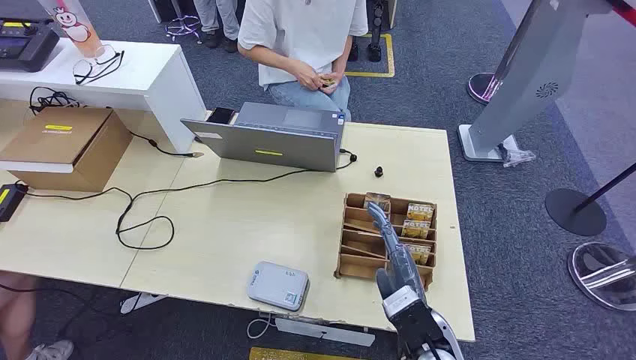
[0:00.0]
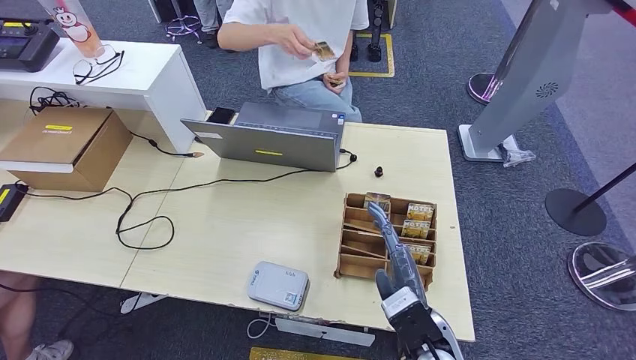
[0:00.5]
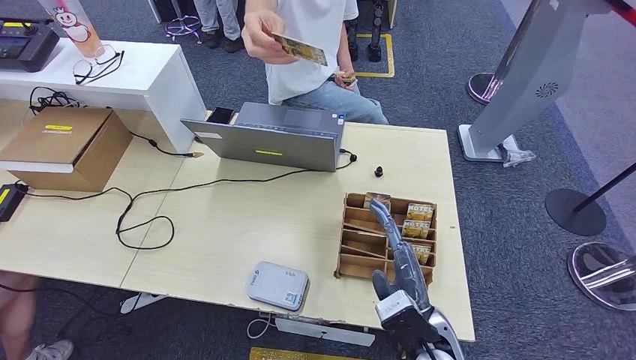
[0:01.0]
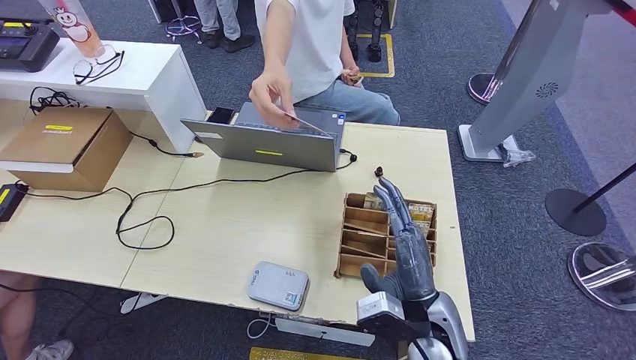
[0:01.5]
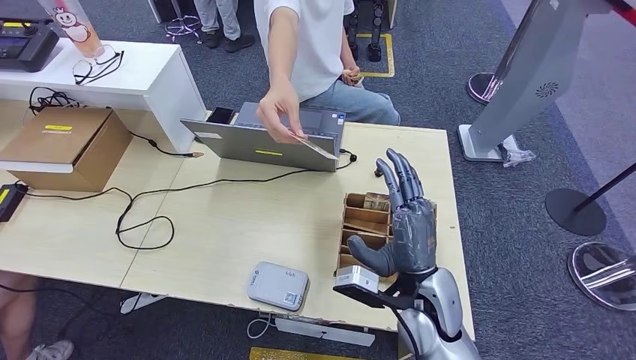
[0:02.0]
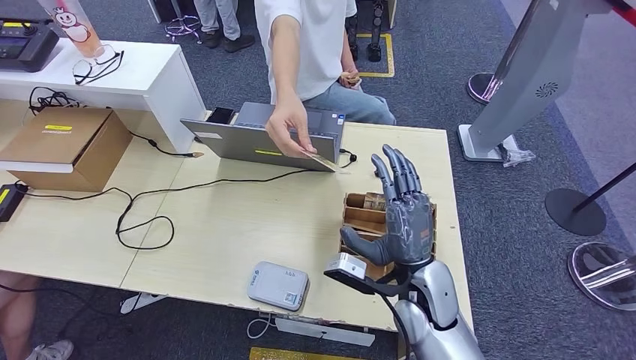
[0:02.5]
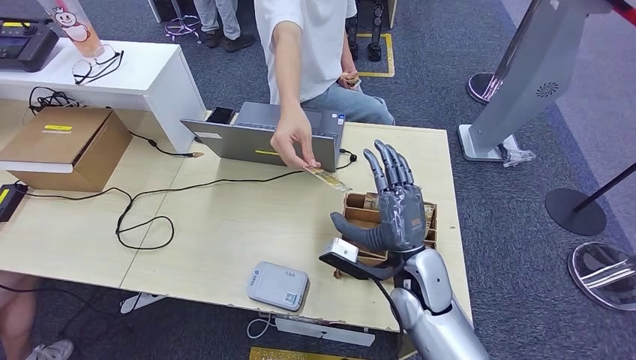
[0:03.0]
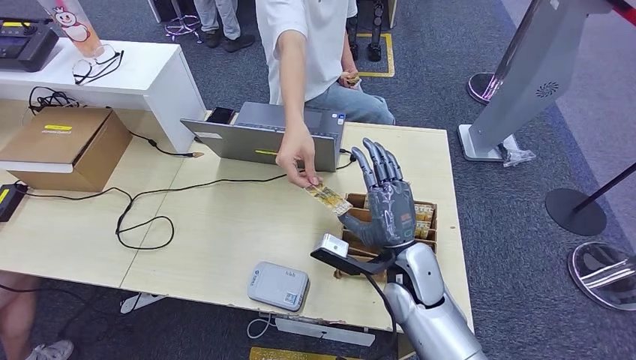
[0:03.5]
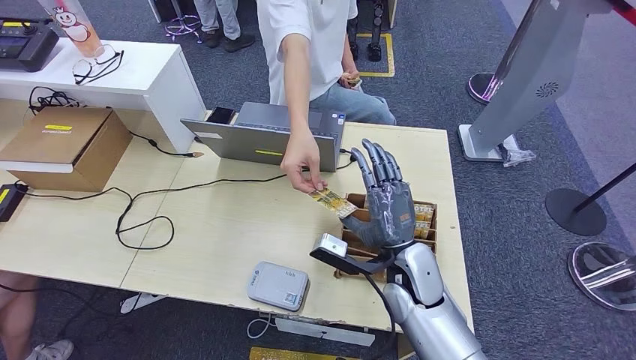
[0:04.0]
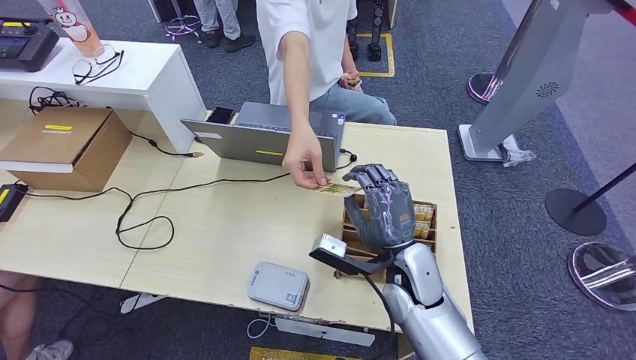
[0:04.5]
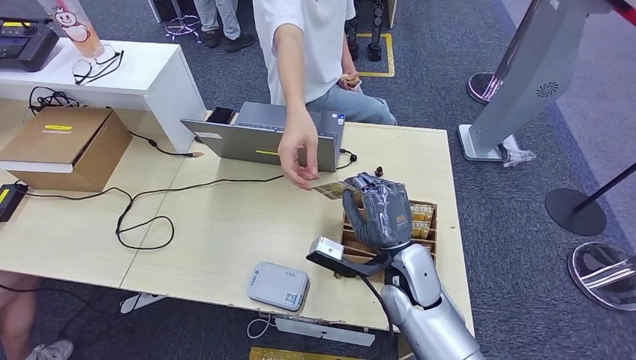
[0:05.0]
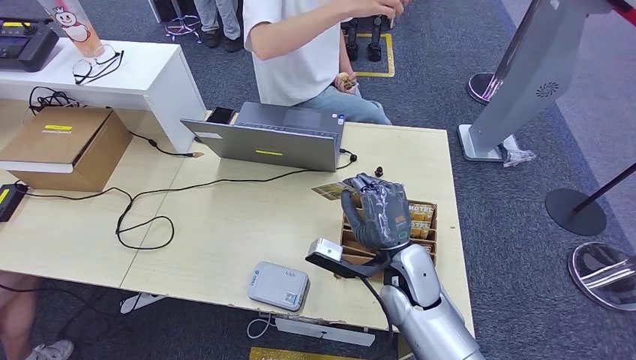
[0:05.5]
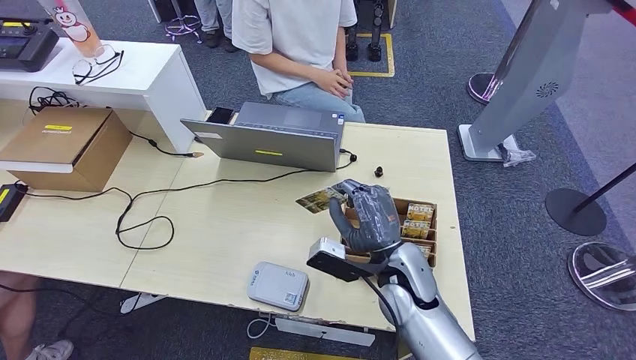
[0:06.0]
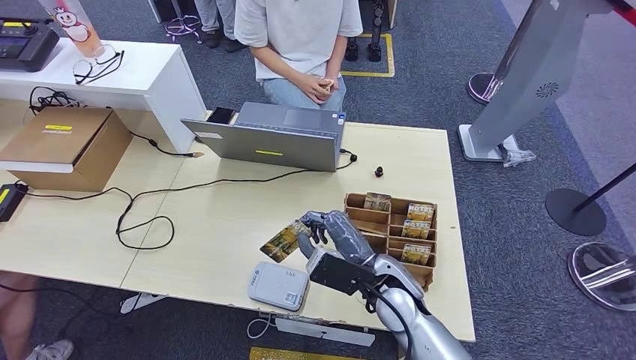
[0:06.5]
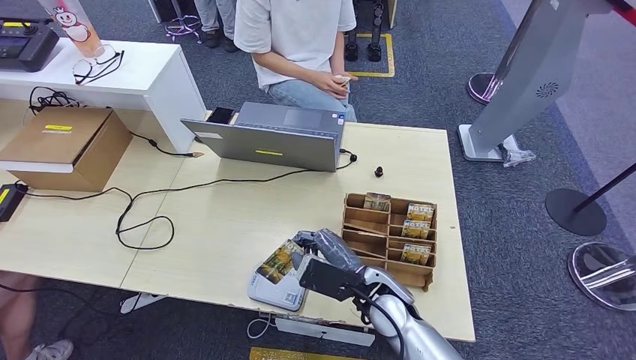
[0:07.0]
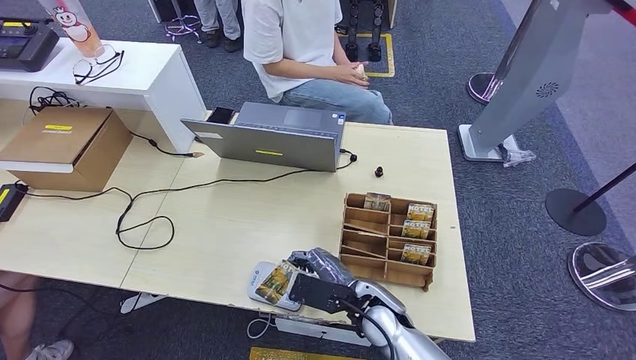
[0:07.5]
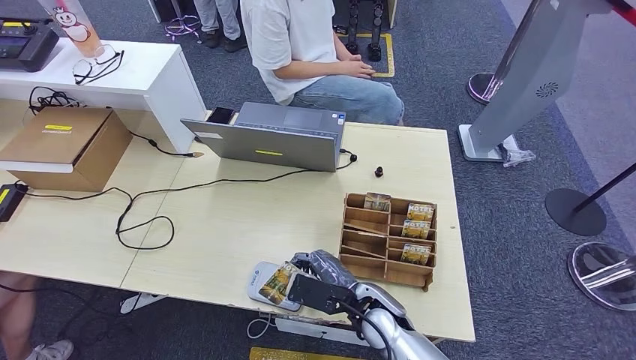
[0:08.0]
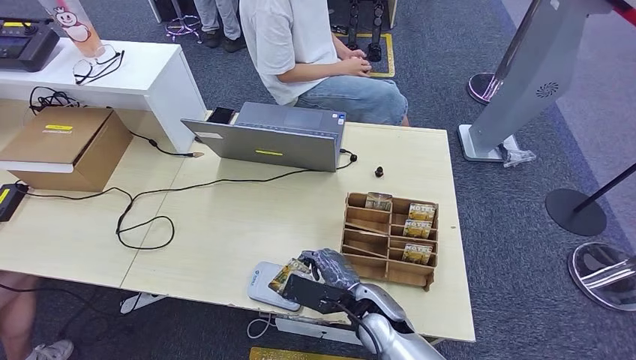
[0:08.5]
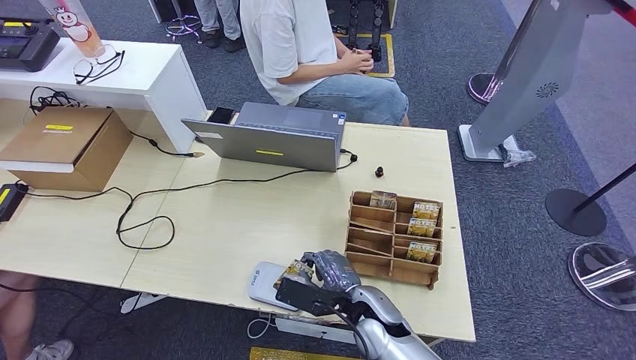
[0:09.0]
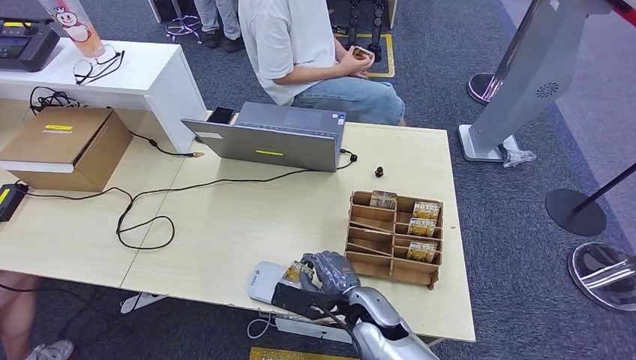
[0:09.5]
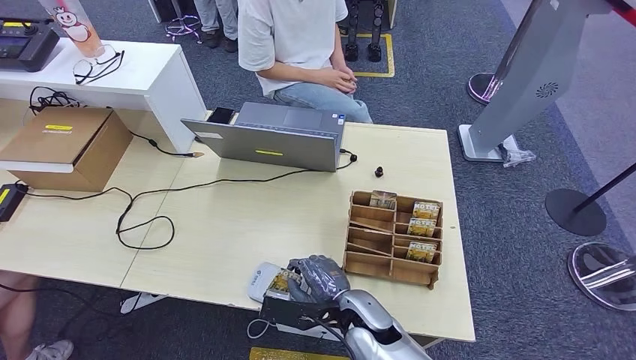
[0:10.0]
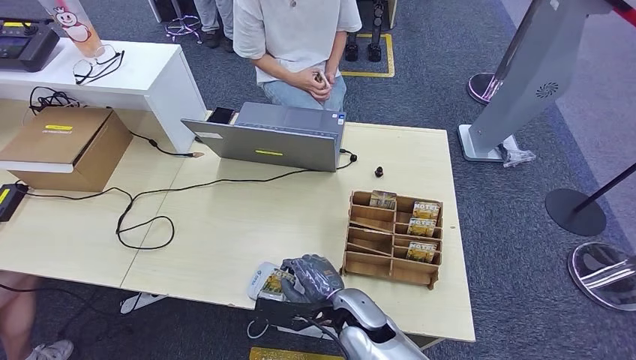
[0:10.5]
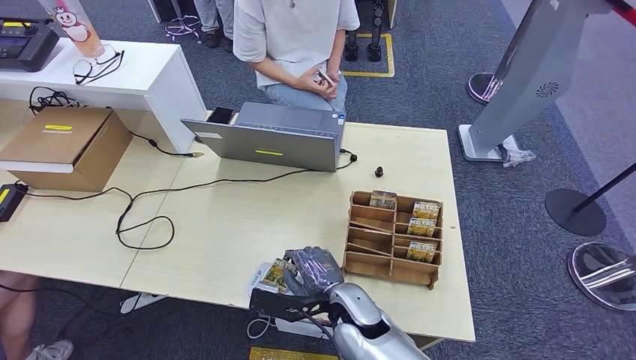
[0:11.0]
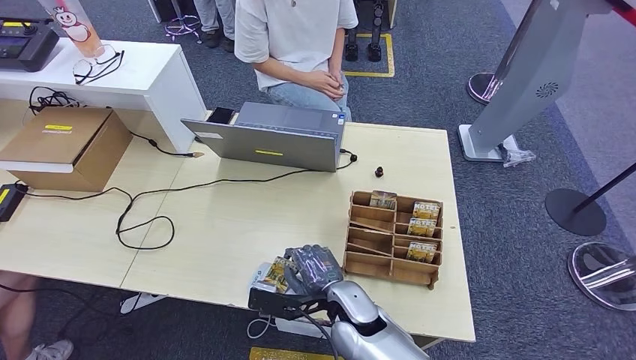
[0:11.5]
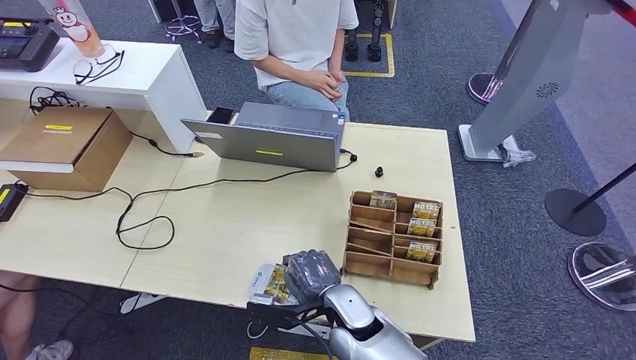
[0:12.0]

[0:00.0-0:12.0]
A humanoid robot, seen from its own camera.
Step, 0:00.0 to 0:05.0: Take the ID card from the person's hand.
Step, 0:05.5 to 0:09.5: Place the ID card on the card reader.
0:02.0 to 0:04.0: The right hand moves about 5 cm.
0:04.0 to 0:06.0: The hands move only a little.
0:06.0 to 0:08.0: The right hand moves downward, some 5 cm.
0:10.0 to 0:12.0: The hands stay close to where they were, moving slightly.

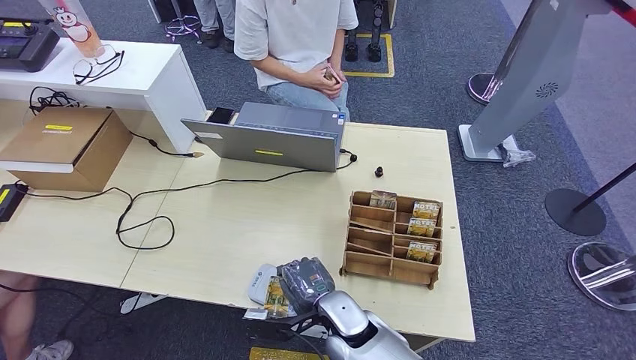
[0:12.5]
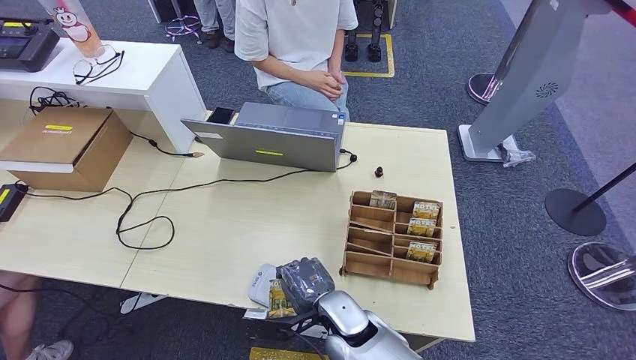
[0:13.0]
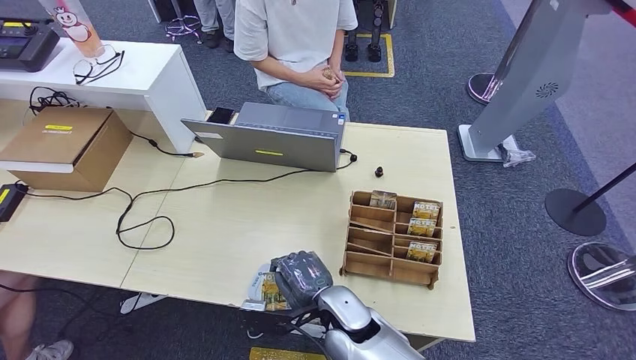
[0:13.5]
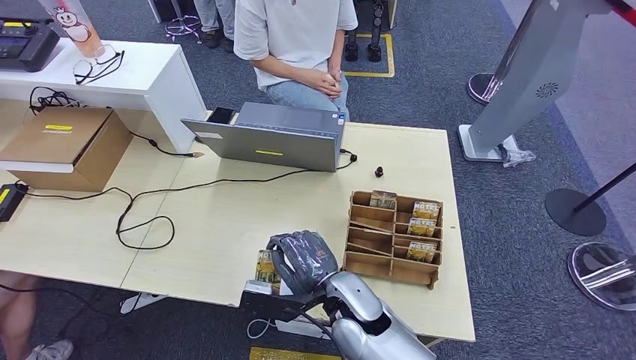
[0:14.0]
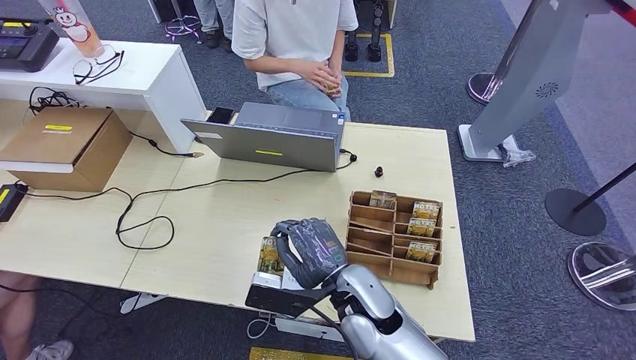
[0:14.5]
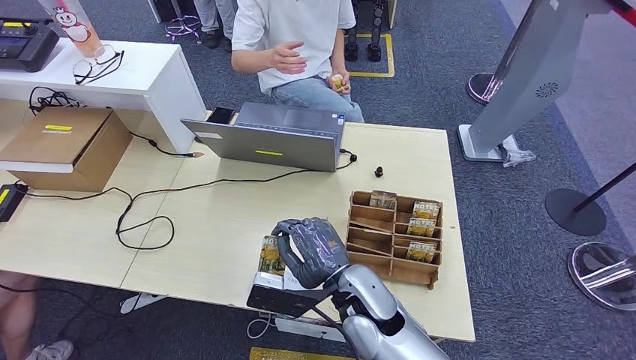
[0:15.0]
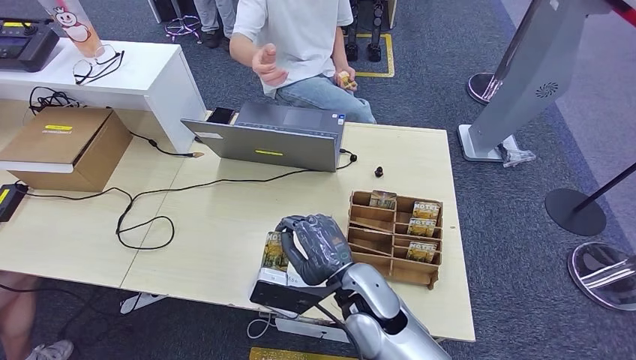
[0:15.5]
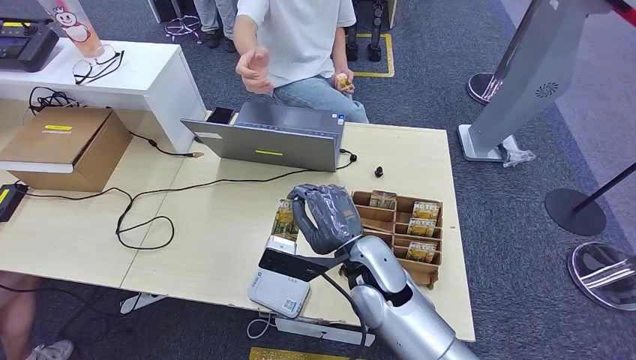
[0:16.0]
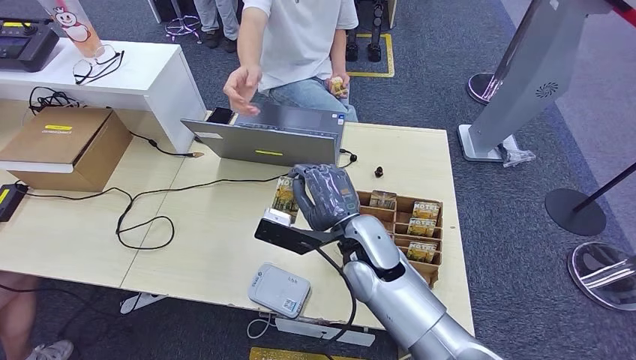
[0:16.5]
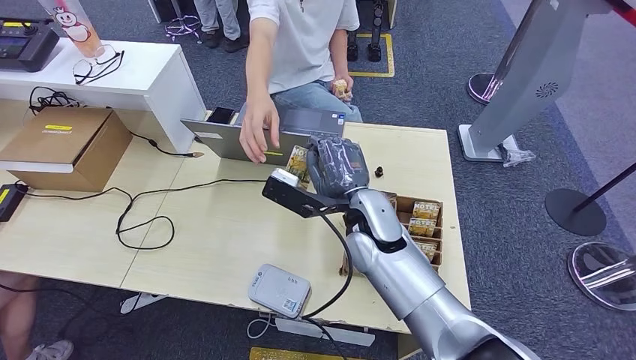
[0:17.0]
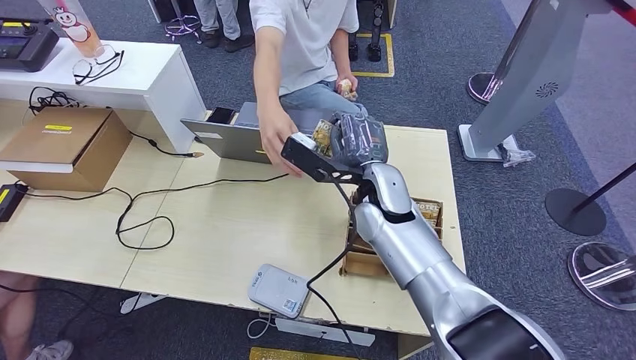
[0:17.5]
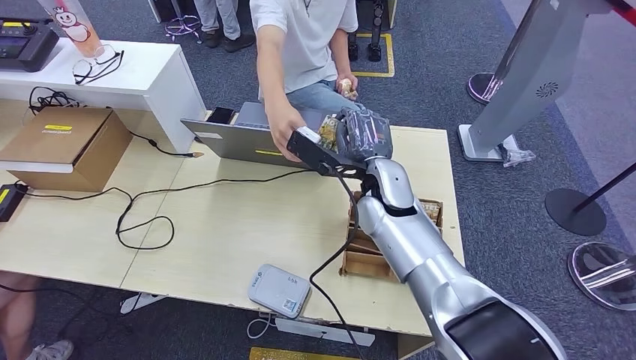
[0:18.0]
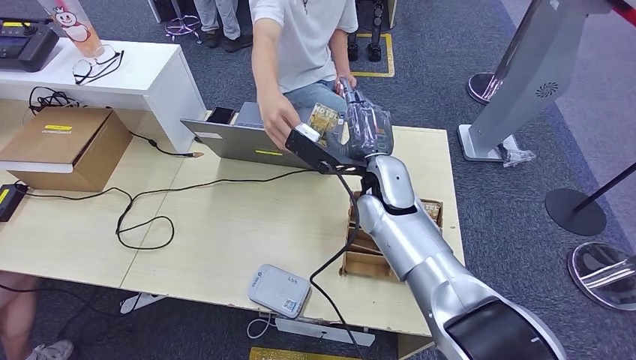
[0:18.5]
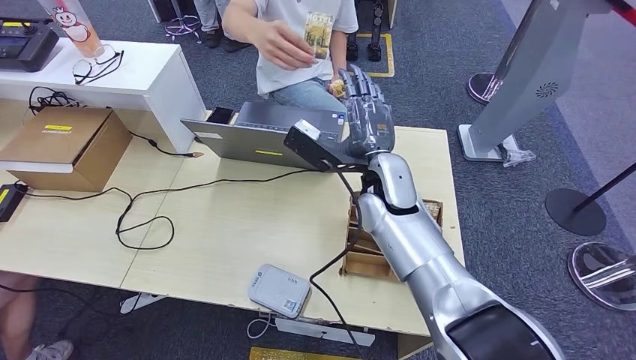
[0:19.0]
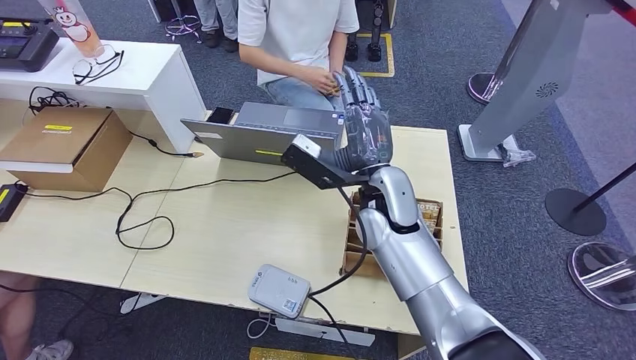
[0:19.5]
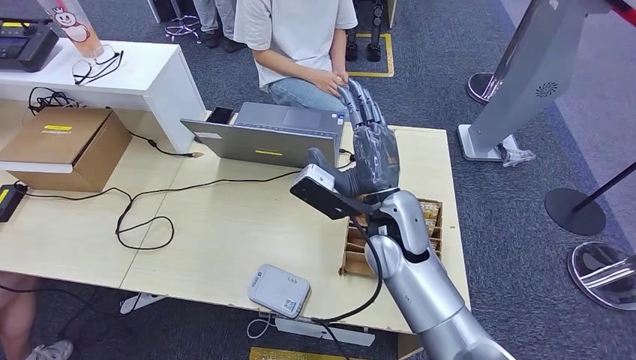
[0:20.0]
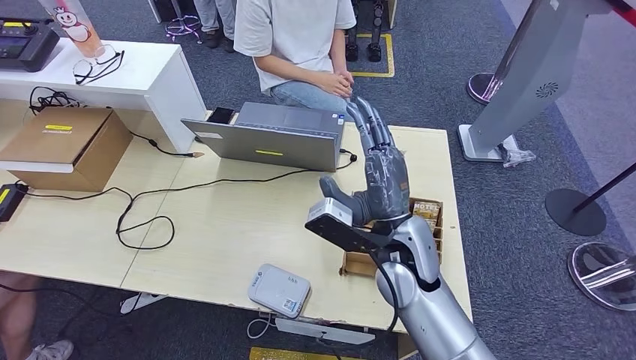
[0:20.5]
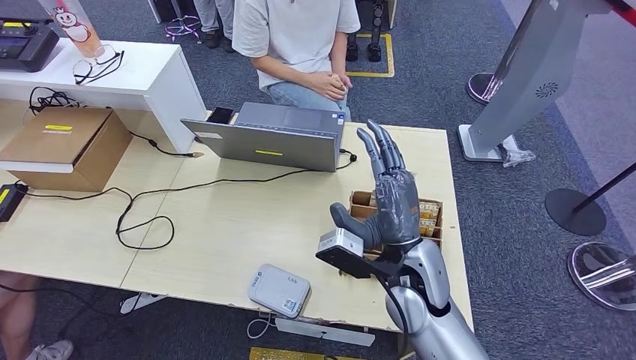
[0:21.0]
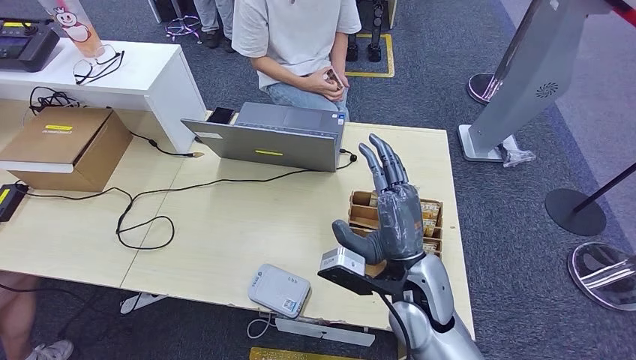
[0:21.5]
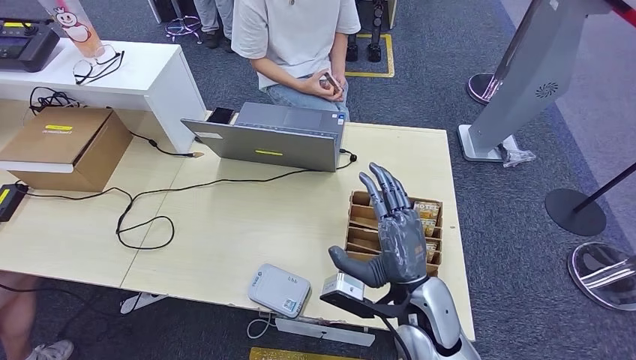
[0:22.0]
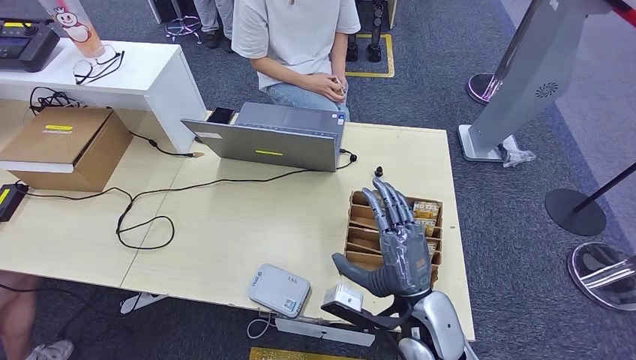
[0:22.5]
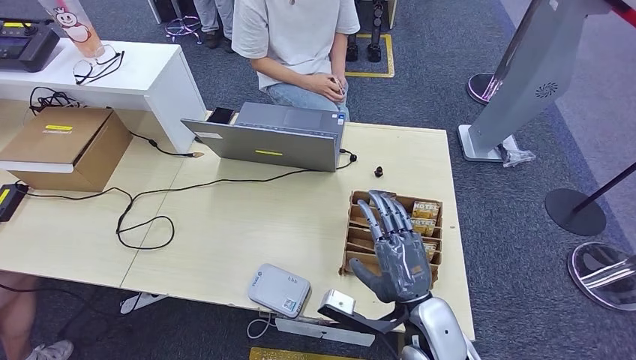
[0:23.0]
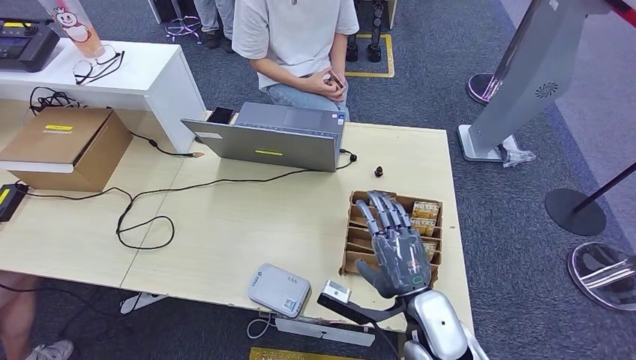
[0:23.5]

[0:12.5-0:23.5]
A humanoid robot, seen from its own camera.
Step, 0:12.5 to 0:19.0: Hand the ID card to the person.
0:12.5 to 0:14.5: The right hand goes approximately 10 cm upward.
0:14.5 to 0:16.0: The hands make only small movements.
0:16.0 to 0:18.0: The right hand travels forward and upward by roughly 15 cm.
0:18.0 to 0:20.0: The right hand moves backward, roughly 5 cm.
0:20.0 to 0:21.5: The right hand travels backward and downward by approximately 10 cm.
0:21.5 to 0:23.5: The right hand is displaced downward by approximately 5 cm.
